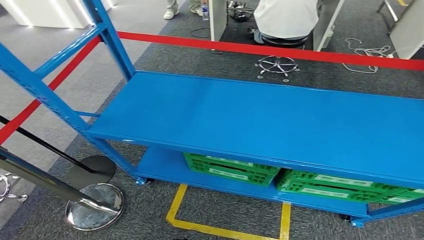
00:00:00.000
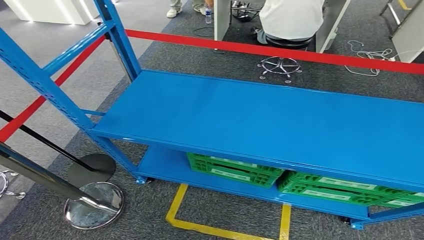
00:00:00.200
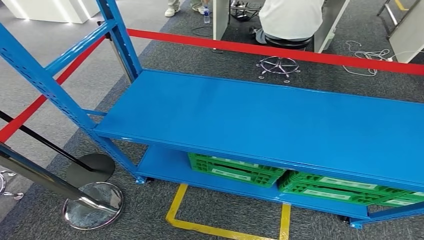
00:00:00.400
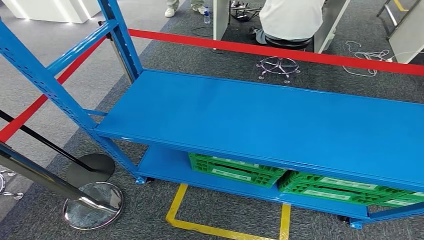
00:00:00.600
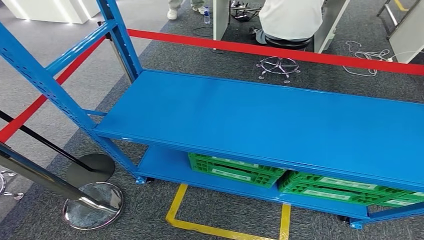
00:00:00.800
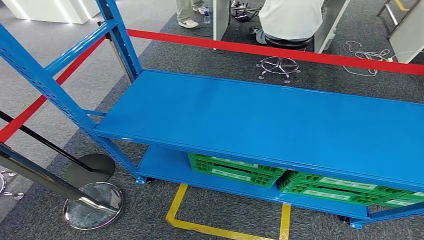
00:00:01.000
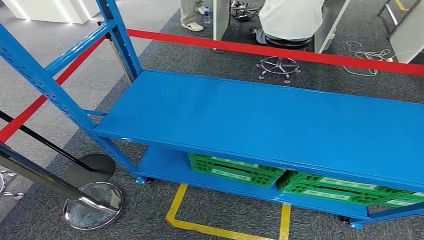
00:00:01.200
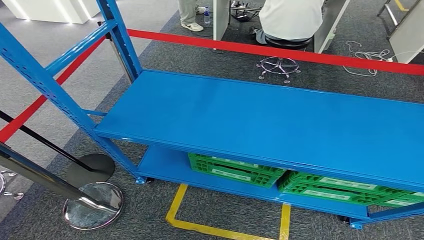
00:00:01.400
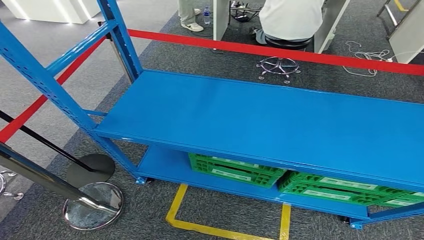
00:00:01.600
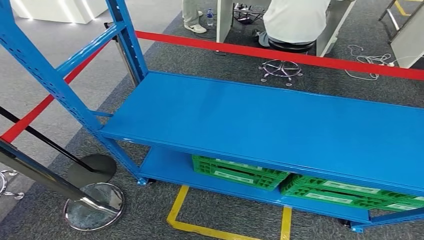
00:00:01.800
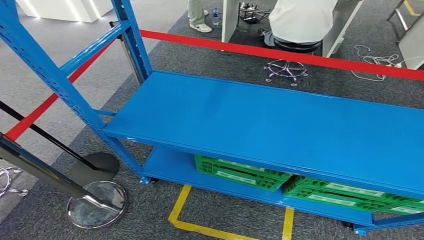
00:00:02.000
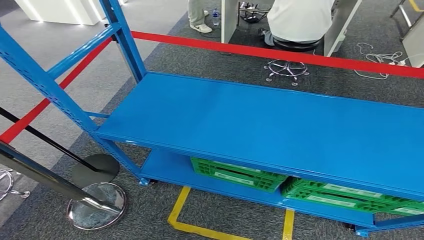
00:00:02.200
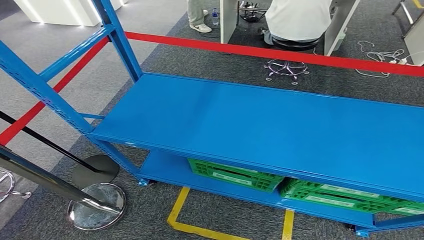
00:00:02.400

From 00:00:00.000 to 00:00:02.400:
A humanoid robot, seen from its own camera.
Step, from 00:00:00.000 to 00:00:02.400: Move to the initial position of the workbench.
From 00:00:00.000 to 00:00:01.200: The hands make only small movements.
